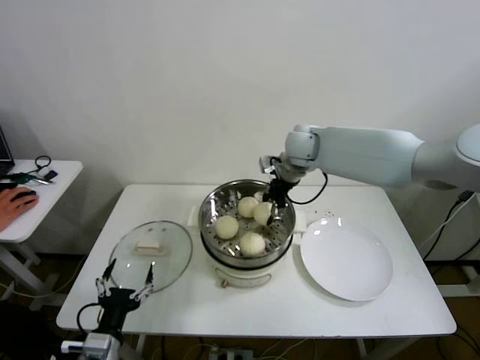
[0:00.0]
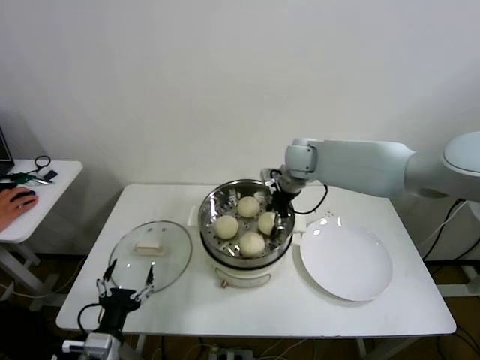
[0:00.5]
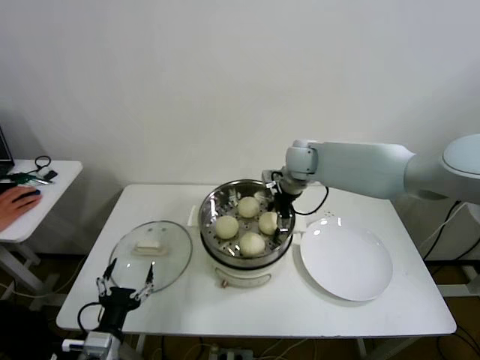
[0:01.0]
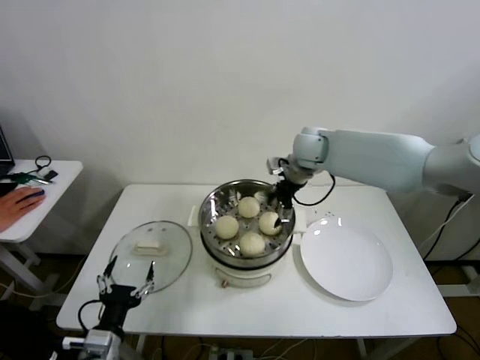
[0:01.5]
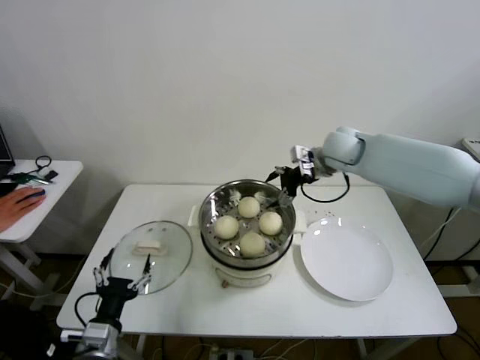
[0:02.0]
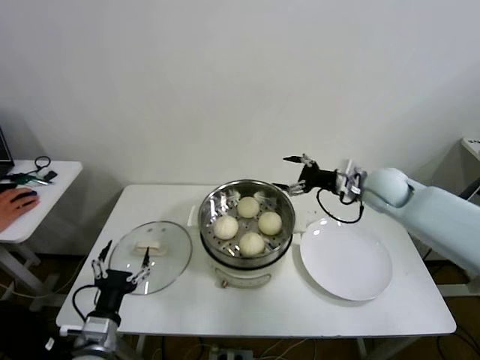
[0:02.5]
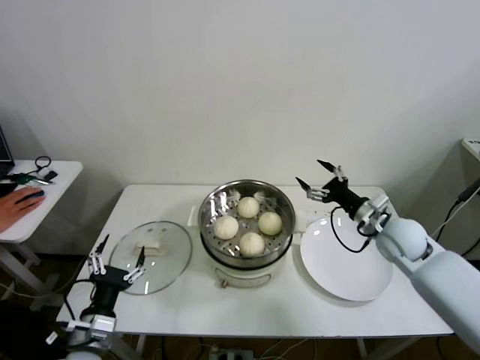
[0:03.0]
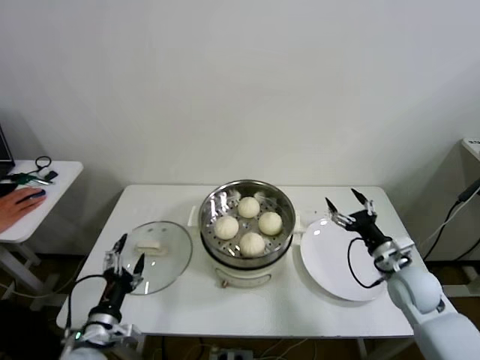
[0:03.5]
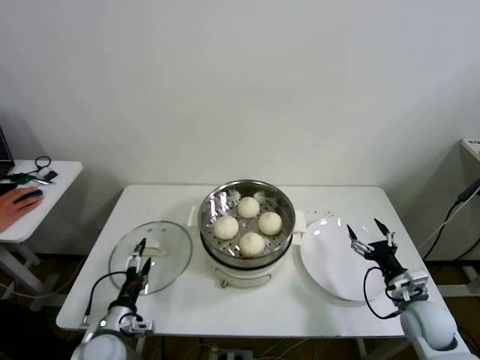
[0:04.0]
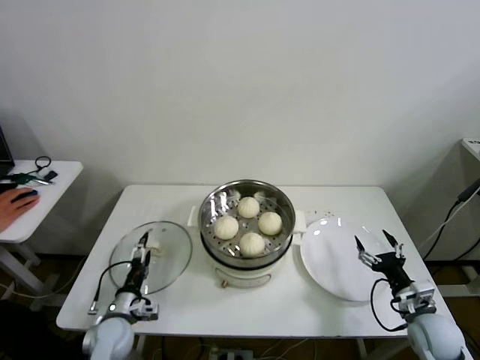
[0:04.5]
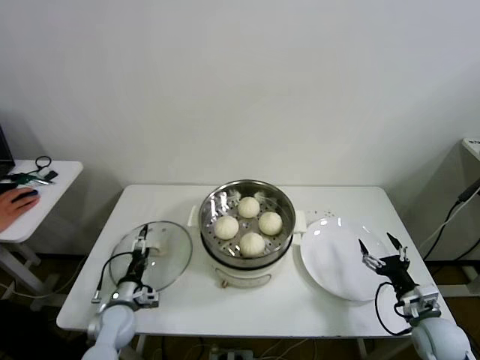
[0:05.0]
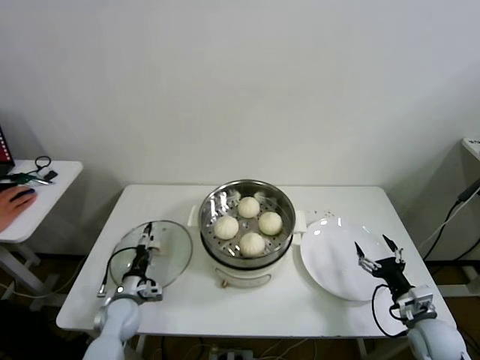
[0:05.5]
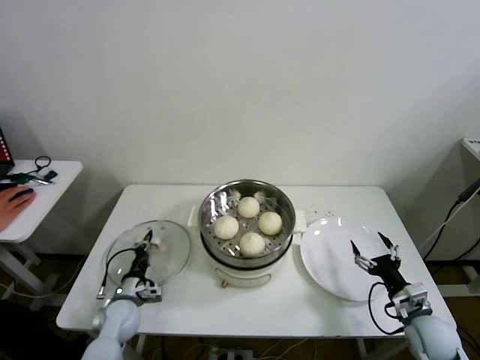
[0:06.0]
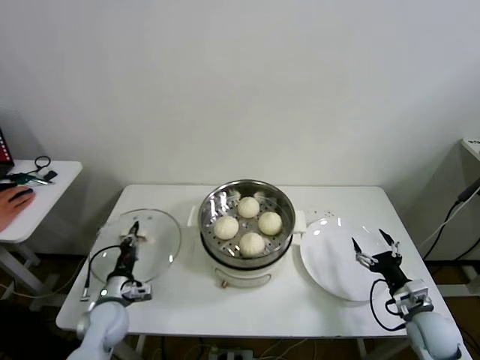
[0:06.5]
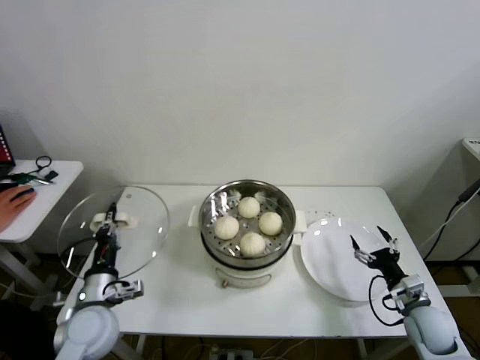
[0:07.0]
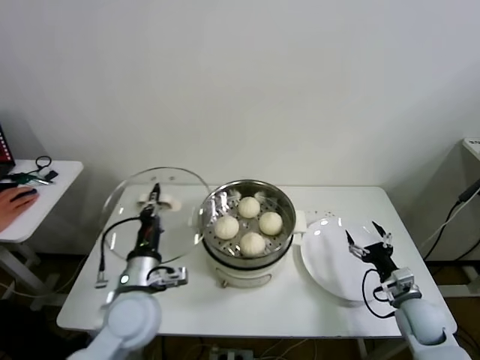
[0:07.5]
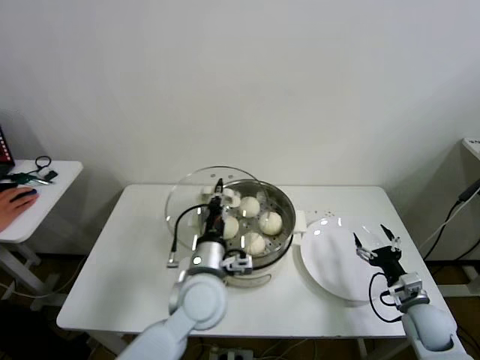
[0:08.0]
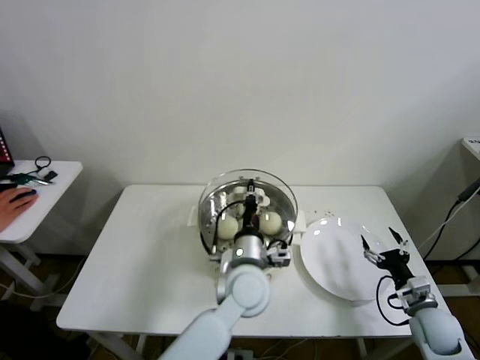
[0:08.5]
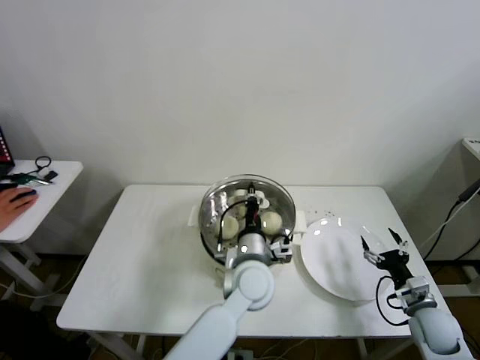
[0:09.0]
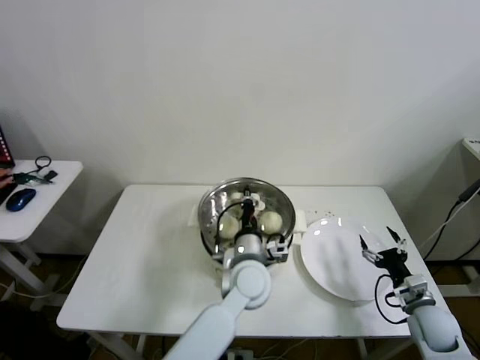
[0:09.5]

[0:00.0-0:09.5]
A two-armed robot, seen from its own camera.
Step, 0:01.5 to 0:06.0: Grasp the pot lid with left gripper.
0:00.0 to 0:02.0: The right gripper moves to the right, approximately 10 cm, and opens up.
0:02.0 to 0:04.0: The right gripper goes about 40 cm backward, downward and to the right. The left gripper moves downward and forward, about 10 cm.
0:04.0 to 0:05.5: The left gripper shifts roughly 10 cm forward and downward.
0:05.5 to 0:07.5: The left gripper travels upward and to the right by about 25 cm, and closes up.
0:07.5 to 0:09.5: The left gripper moves to the right, about 20 cm.

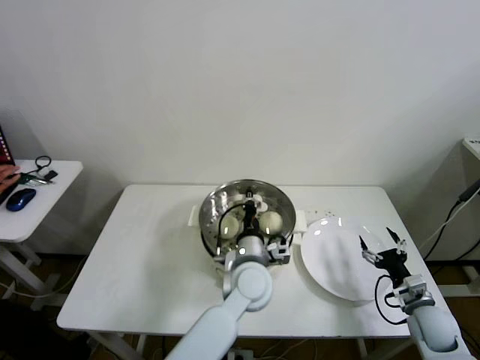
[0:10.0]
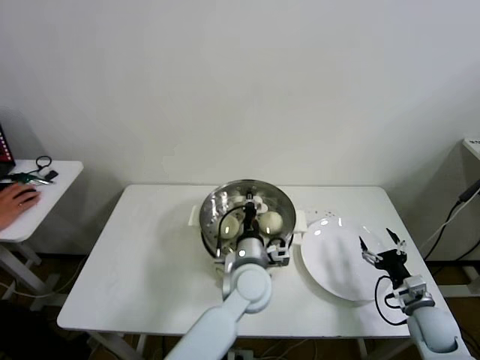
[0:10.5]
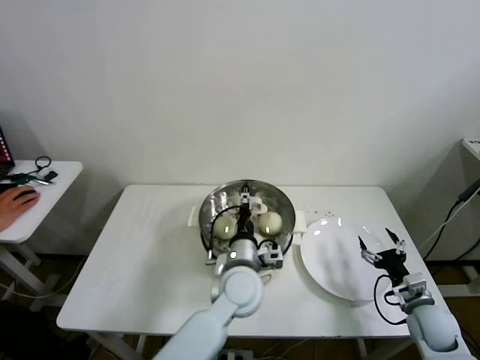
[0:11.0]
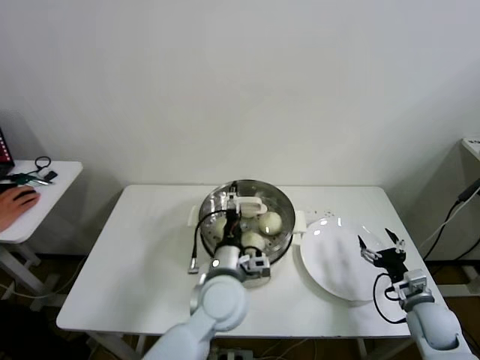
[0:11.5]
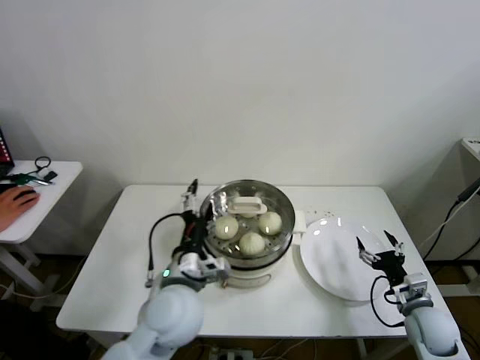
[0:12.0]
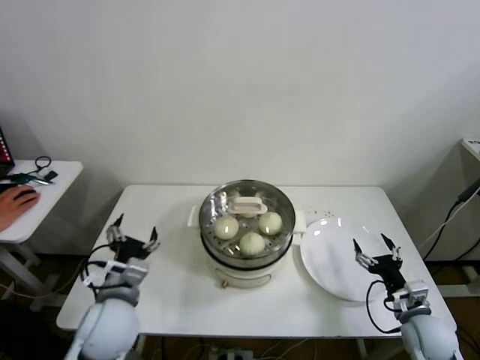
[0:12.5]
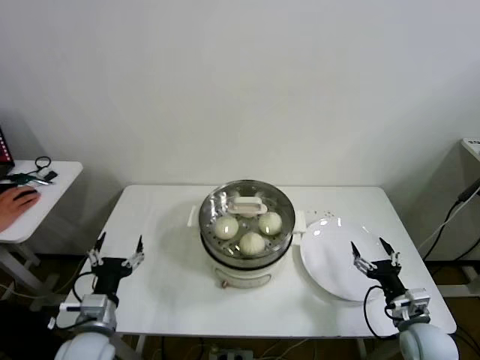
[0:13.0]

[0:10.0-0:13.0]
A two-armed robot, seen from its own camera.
0:10.0 to 0:11.5: The left gripper ends up some 5 cm from where it was, and opens up.
0:11.5 to 0:13.0: The left gripper travels to the left by about 25 cm; the right gripper shifts by some 5 cm.

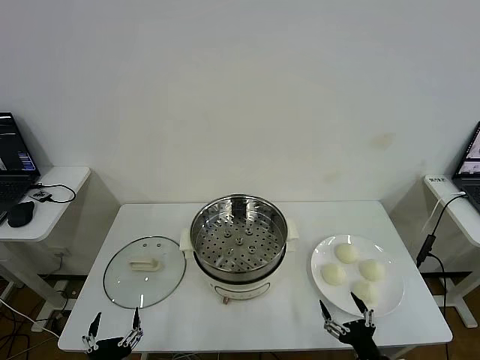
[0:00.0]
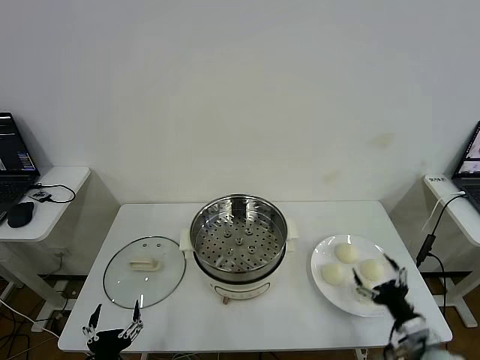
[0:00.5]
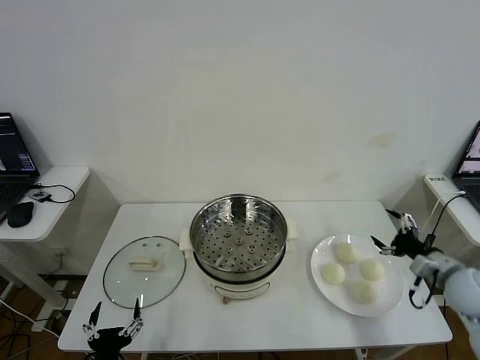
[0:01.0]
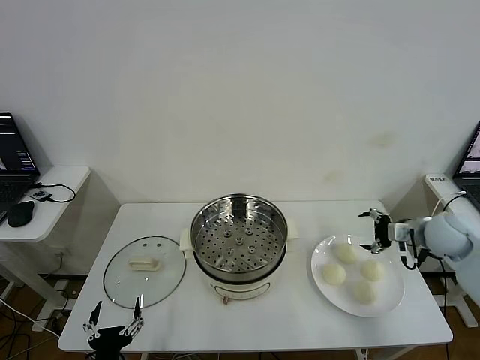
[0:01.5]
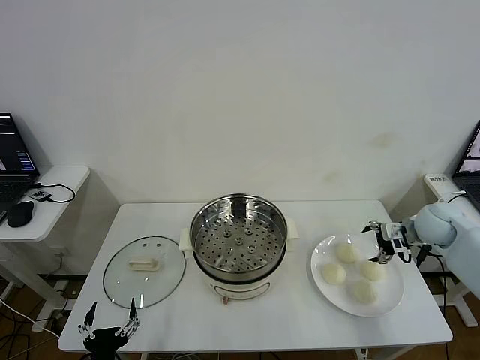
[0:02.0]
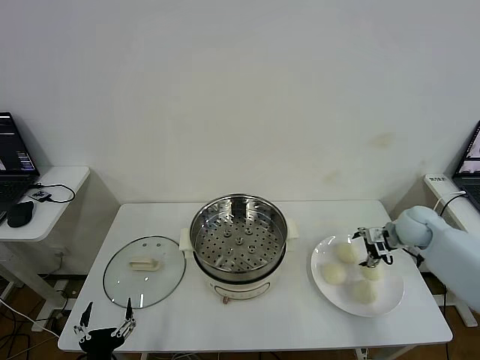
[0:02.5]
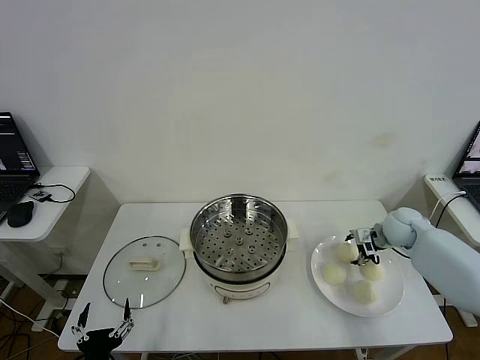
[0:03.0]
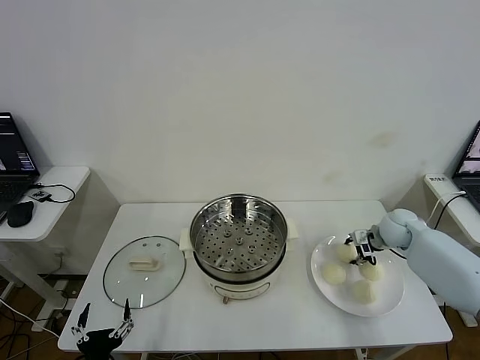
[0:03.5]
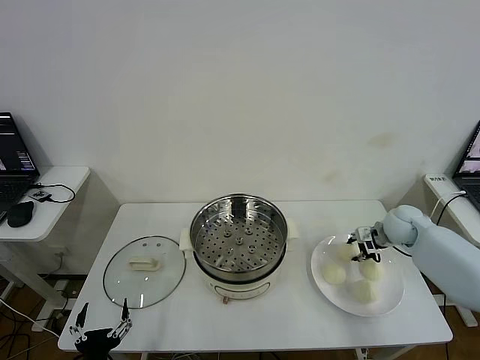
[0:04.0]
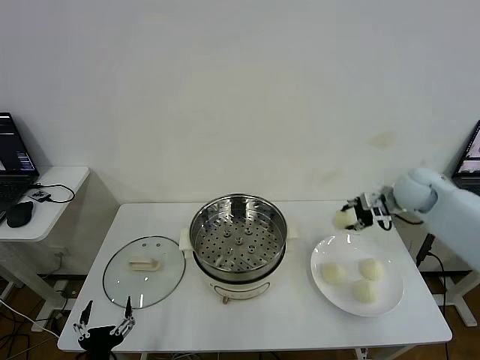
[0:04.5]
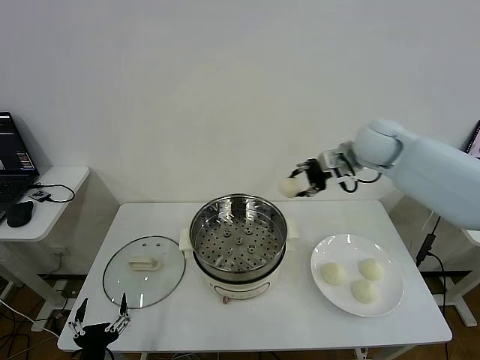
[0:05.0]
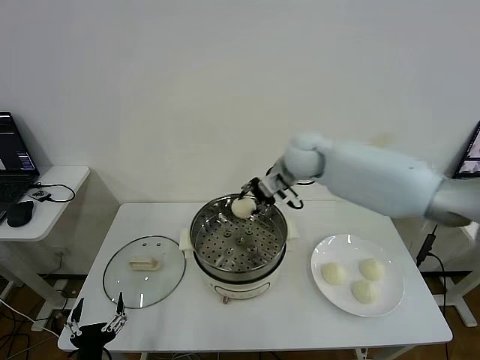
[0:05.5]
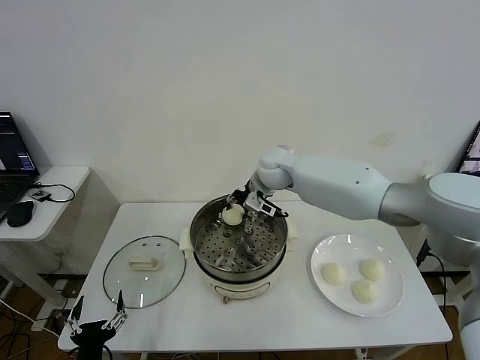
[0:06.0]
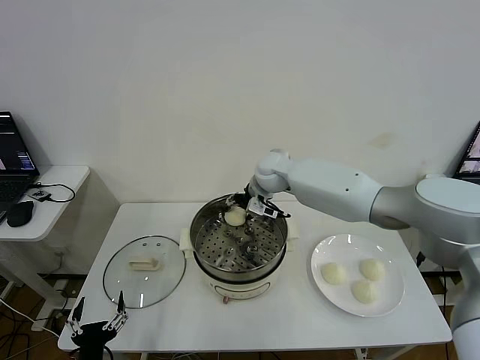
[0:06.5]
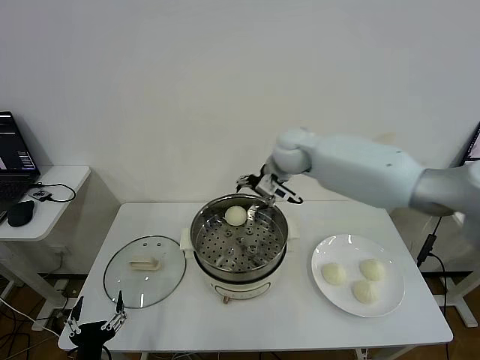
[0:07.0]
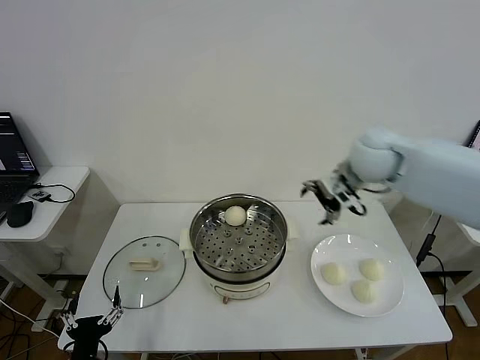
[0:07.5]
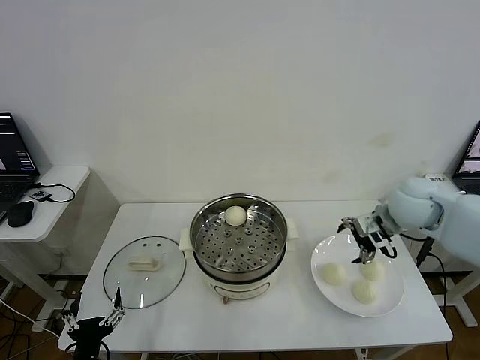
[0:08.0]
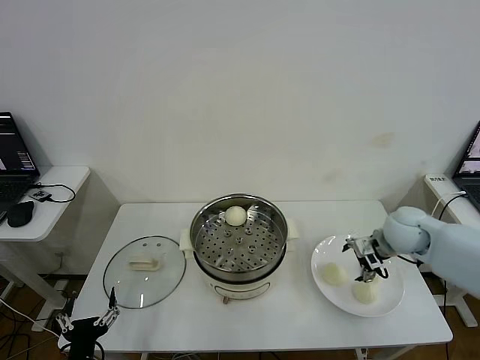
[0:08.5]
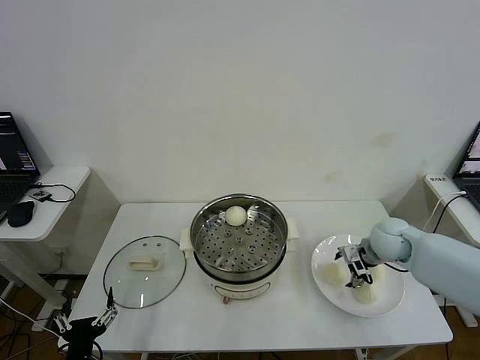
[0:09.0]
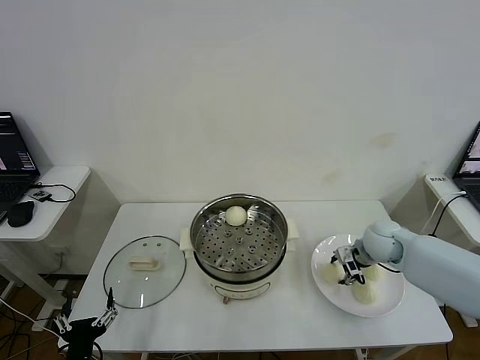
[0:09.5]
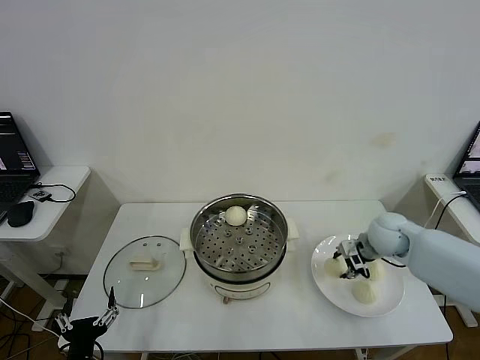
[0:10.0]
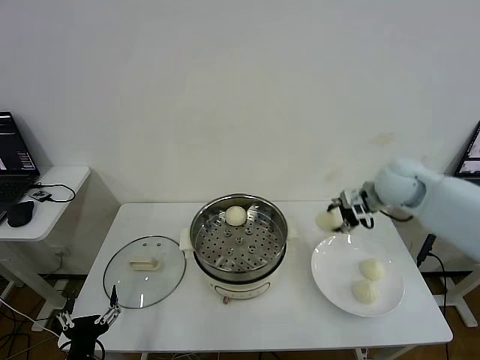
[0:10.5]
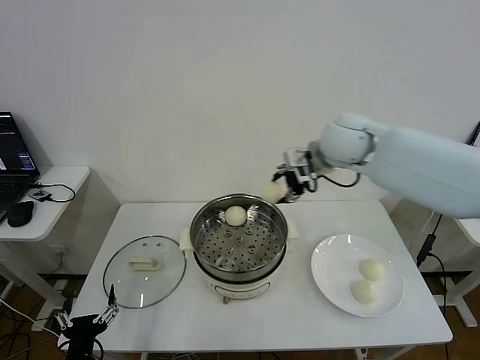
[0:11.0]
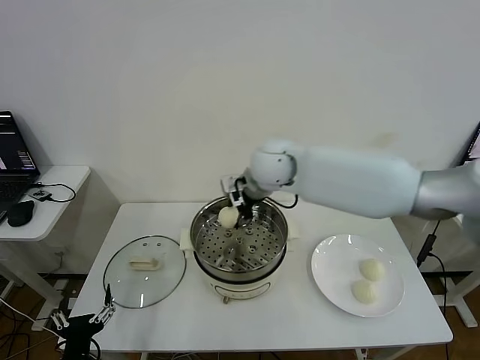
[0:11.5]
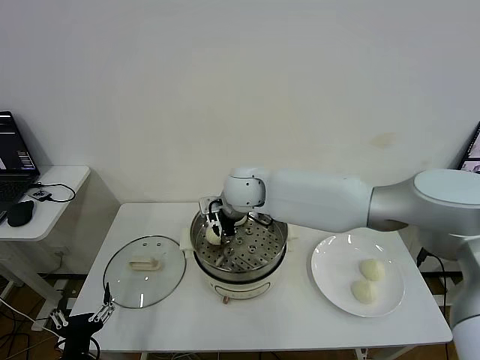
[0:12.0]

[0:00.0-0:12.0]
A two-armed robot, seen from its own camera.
Step, 0:00.0 to 0:03.5: Grasp the baozi in the plate with right gripper.
Step, 0:04.0 to 0:06.5: Place the baozi on the steamer with right gripper.
Step, 0:07.0 to 0:09.5: Grasp the baozi in the plate with right gripper.
0:02.0 to 0:04.0: The right gripper closes its fingers.
0:04.0 to 0:06.0: The right gripper shifts roughly 35 cm to the left.
0:06.0 to 0:08.0: The right gripper shifts approximately 30 cm to the right and backward, and opens up.
0:08.0 to 0:10.0: The right gripper is displaced downward by some 10 cm, and closes its fingers.
0:10.0 to 0:12.0: The right gripper travels to the left by about 35 cm.

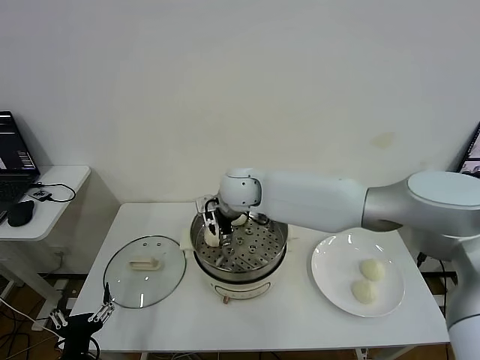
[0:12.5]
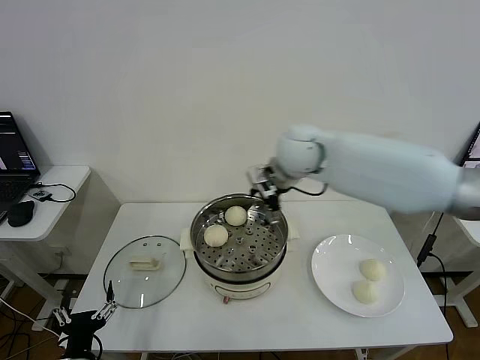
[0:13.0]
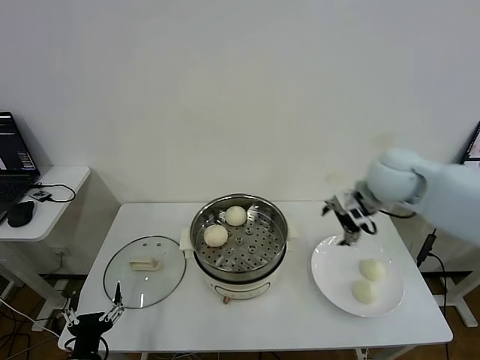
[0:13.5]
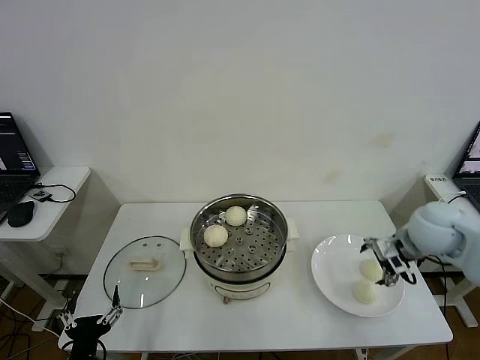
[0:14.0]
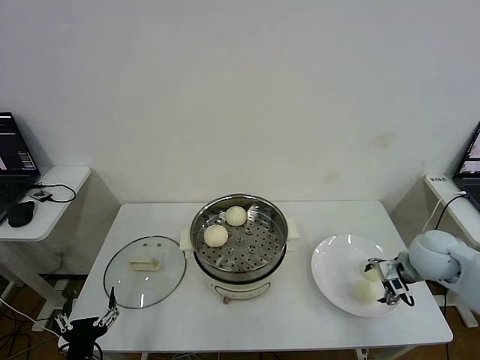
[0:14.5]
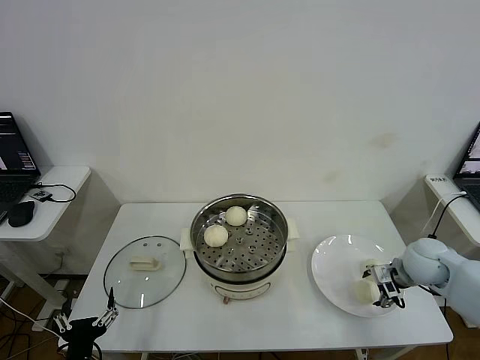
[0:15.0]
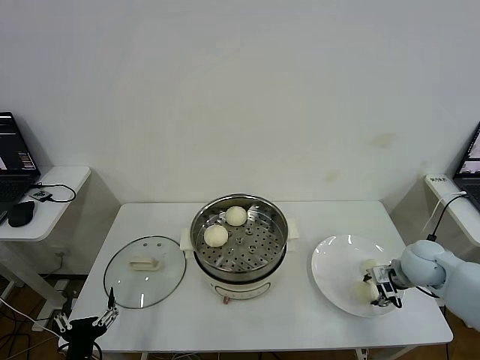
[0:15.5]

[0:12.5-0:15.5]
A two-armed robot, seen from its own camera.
0:12.5 to 0:14.0: The right gripper moves to the right, roughly 40 cm.
0:14.0 to 0:15.5: The right gripper shifts roughly 10 cm downward, and closes its fingers.
